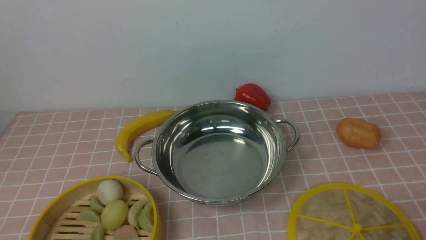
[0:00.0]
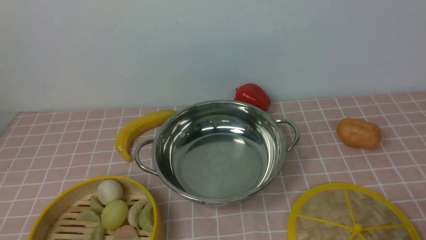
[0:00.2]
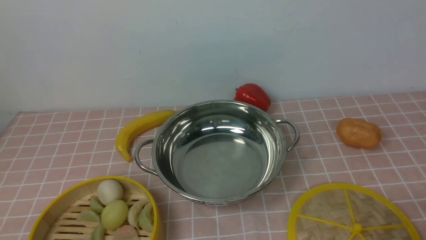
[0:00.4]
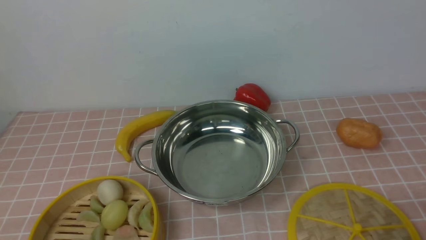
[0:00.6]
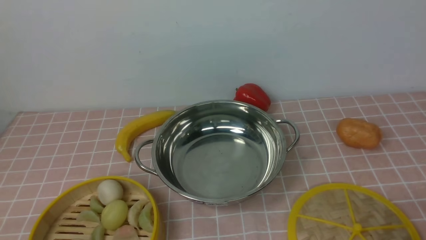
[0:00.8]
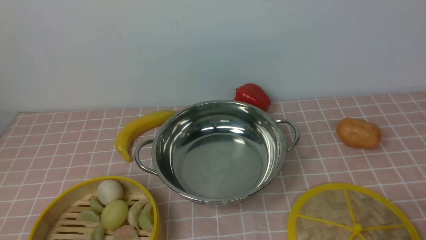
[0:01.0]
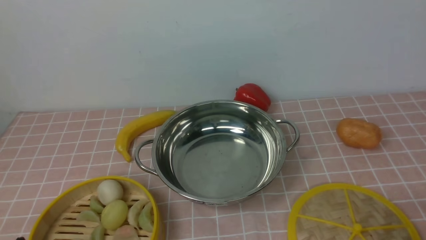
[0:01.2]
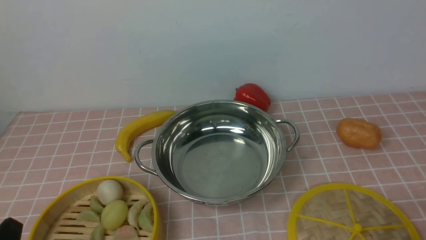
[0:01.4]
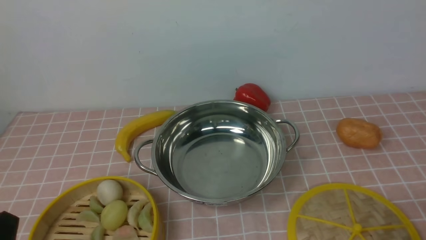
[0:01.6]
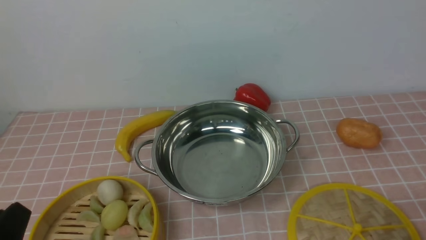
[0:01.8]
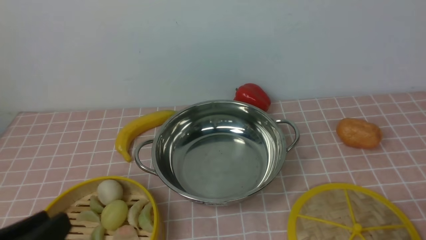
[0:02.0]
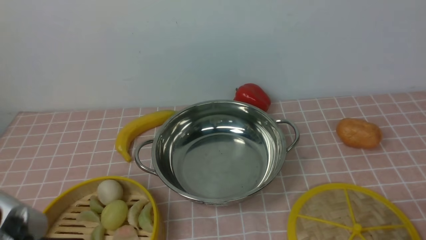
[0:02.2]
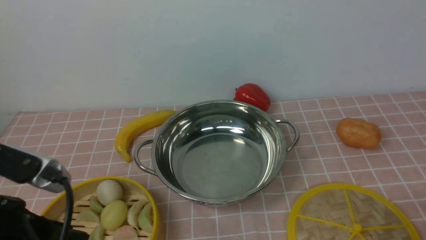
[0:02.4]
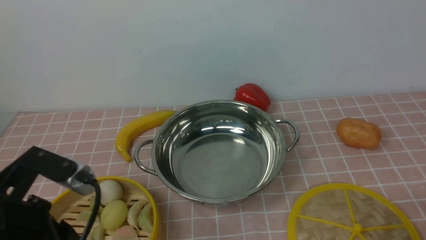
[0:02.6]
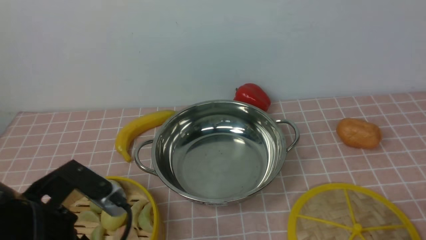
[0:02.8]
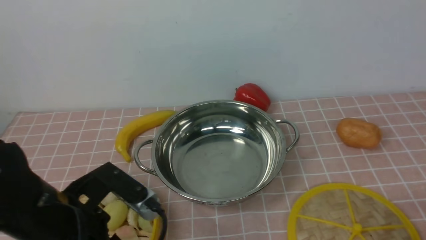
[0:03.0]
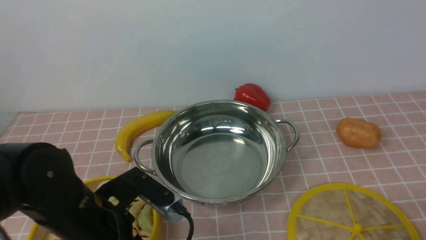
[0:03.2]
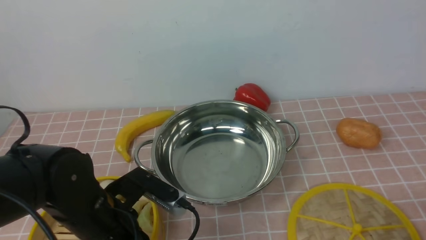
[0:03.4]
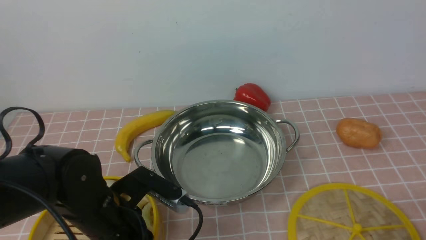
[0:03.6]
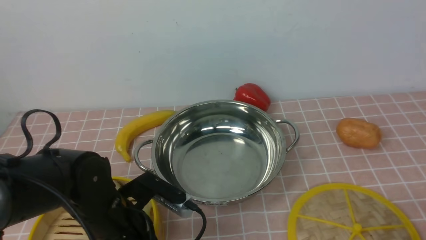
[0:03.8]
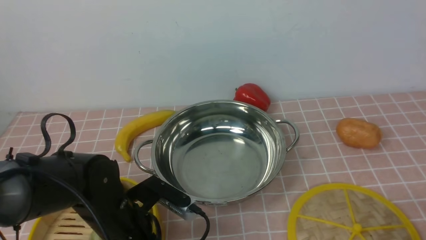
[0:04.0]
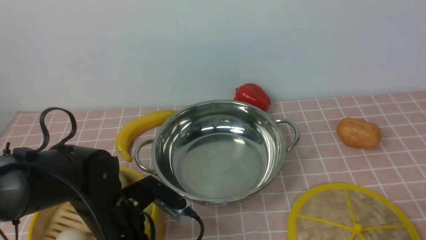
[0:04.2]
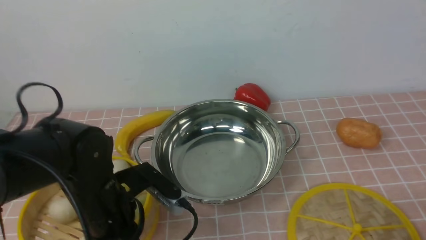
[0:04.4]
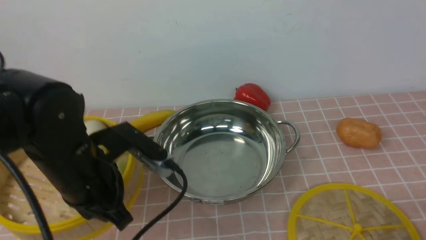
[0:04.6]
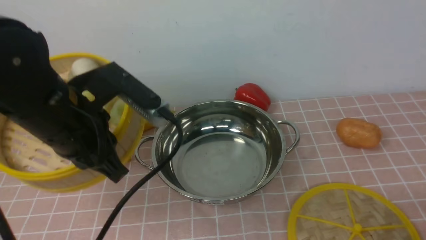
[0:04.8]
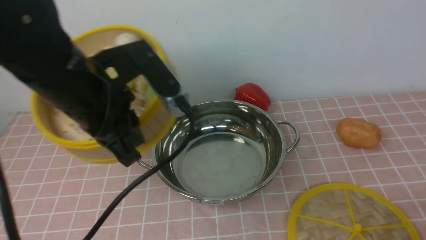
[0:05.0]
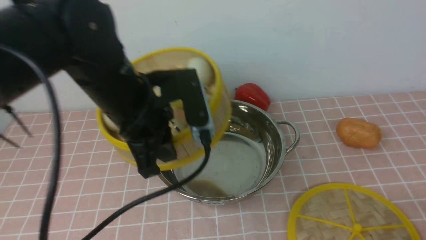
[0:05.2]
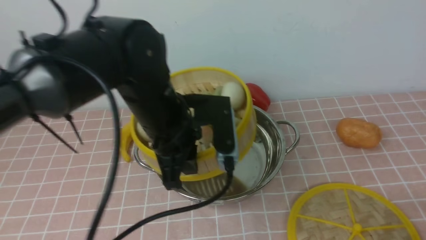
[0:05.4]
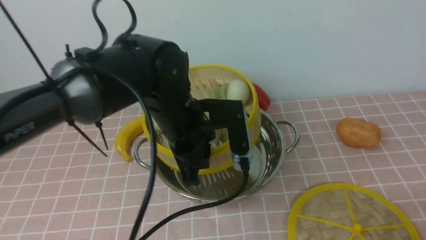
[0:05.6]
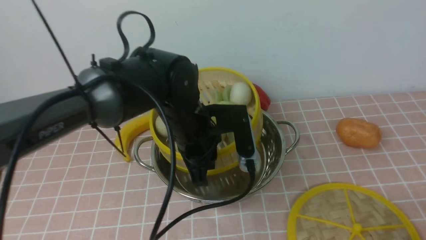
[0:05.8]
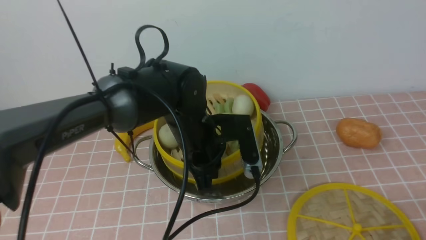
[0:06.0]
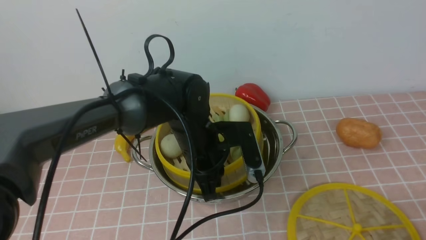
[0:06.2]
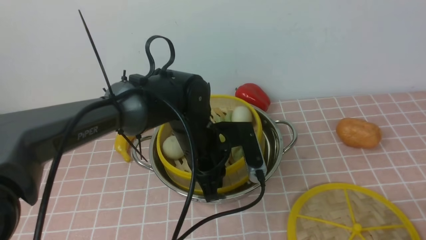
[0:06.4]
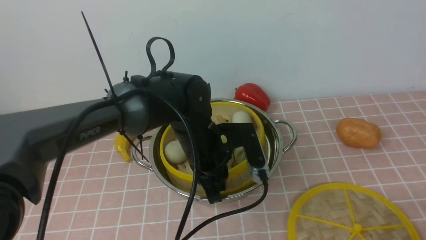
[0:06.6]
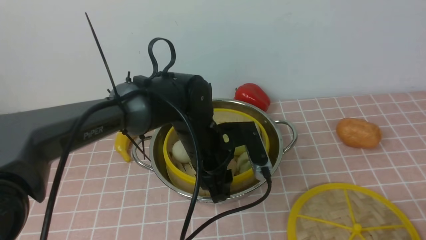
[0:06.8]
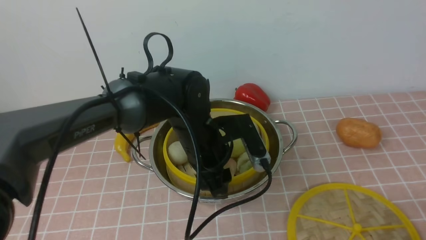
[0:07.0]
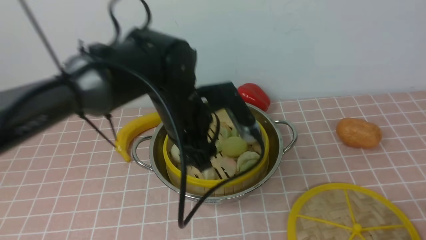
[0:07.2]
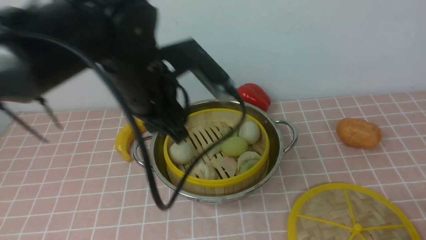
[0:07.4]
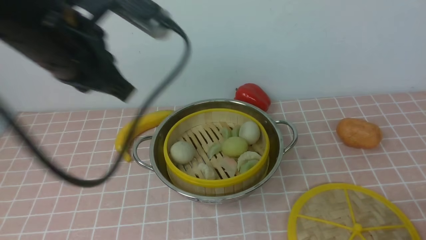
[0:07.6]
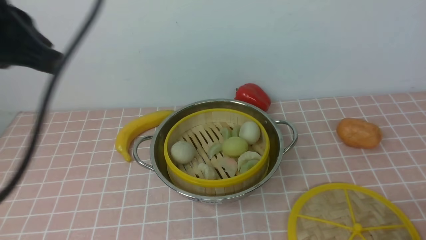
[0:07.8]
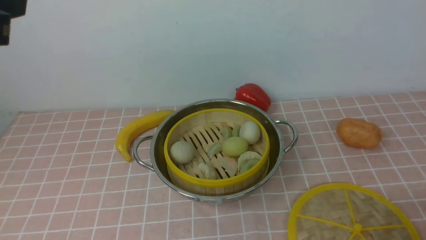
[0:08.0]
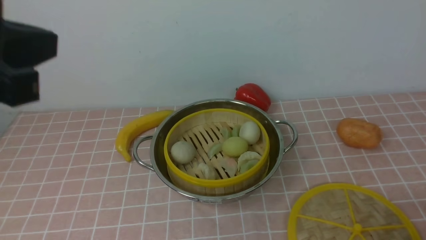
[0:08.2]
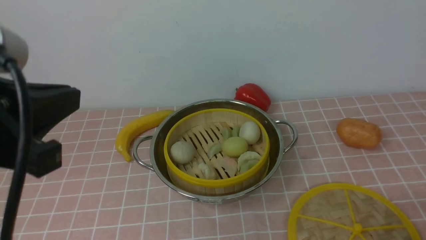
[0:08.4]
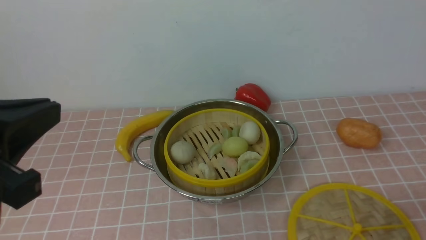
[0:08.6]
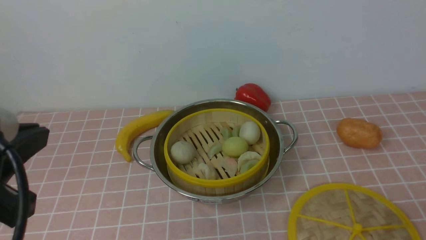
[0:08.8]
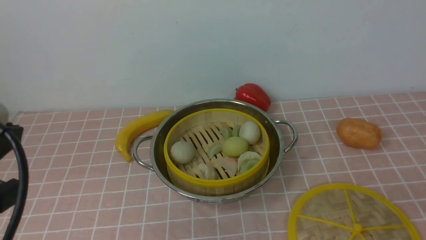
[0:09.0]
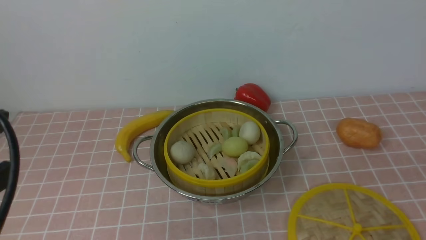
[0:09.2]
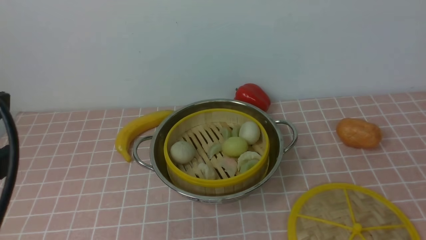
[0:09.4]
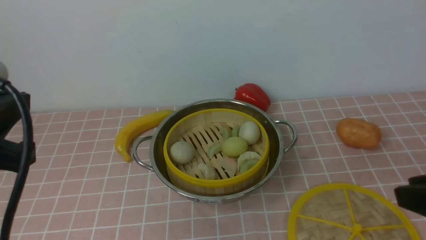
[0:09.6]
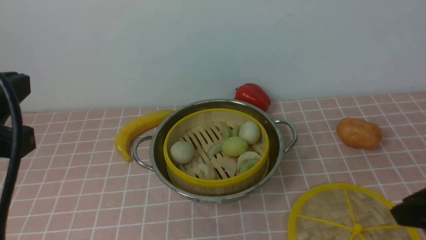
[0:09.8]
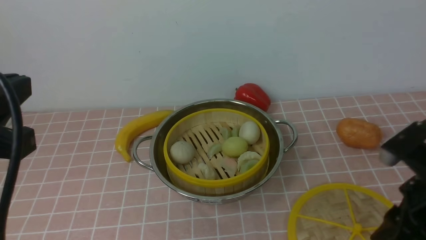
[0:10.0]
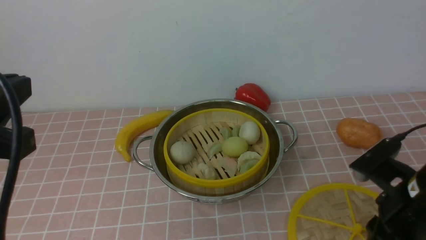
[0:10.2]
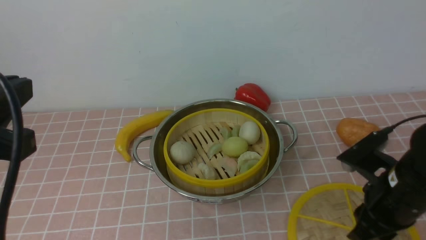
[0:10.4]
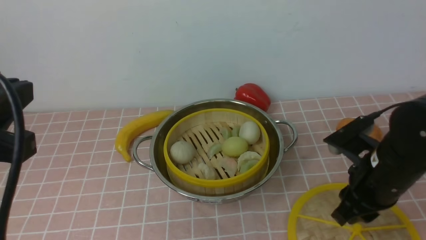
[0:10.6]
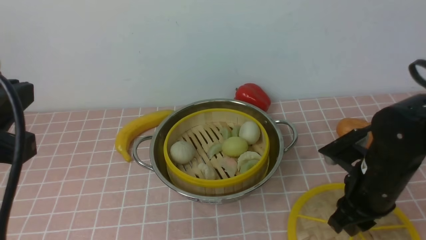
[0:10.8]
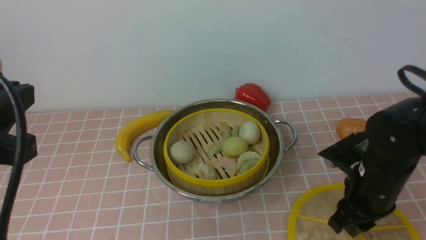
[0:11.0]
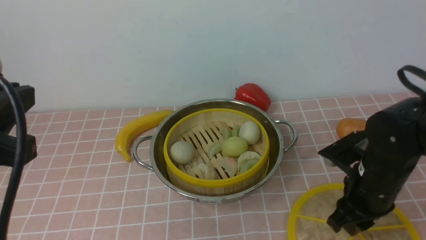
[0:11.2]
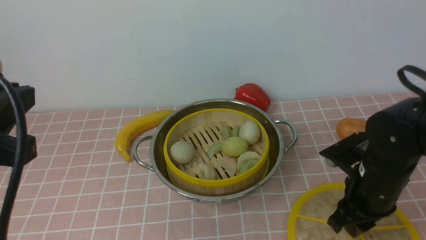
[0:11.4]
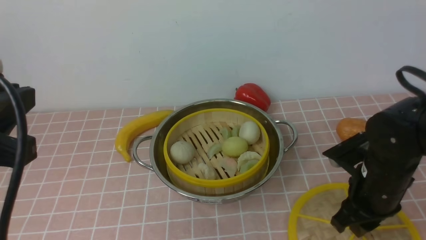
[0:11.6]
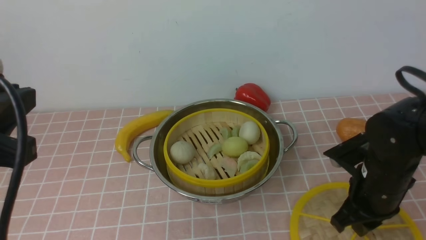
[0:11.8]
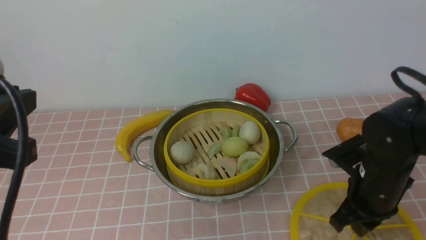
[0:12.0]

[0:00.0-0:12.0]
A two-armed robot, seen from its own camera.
Task of the whole recording: place the steamer in the pot on the pink tablecloth, and put the lid on the steamer.
Step, 0:00.0 to 0:04.2: use the left arm to lift the steamer closest to it.
Step, 0:04.4 to 0:07.0: use the left arm to put the steamer into the iron steamer pot in the middle.
0:01.6 to 0:03.0: The left gripper travels forward and to the right by roughly 15 cm.
0:03.0 to 0:04.4: The left gripper travels forward and downward by roughly 10 cm, and closes up.
0:04.4 to 0:06.0: The left gripper shifts approximately 15 cm to the right and forward, and travels upward and back again, roughly 15 cm each way.
0:06.0 to 0:07.6: The left gripper shifts about 20 cm upward and to the left, and opens and closes again.
0:07.6 to 0:09.0: The left gripper shifts approximately 20 cm backward and to the left, while the right gripper shifts some 5 cm upward.
0:09.0 to 0:10.4: The right gripper travels forward and to the left by roughly 20 cm.
0:10.4 to 0:12.0: The right gripper changes place by about 5 cm.

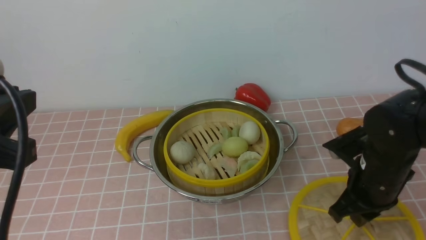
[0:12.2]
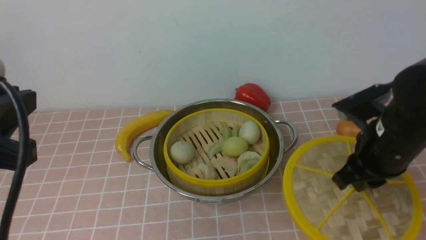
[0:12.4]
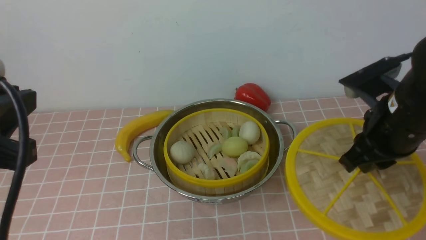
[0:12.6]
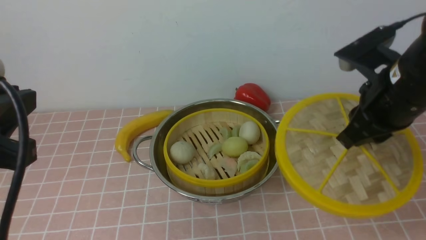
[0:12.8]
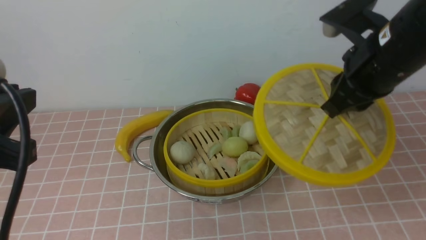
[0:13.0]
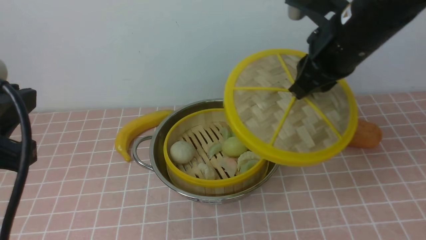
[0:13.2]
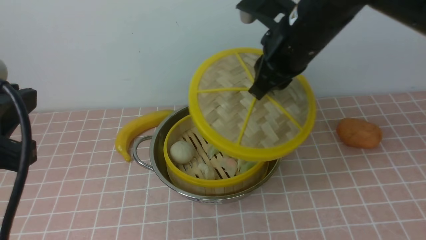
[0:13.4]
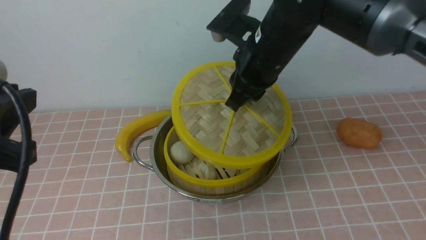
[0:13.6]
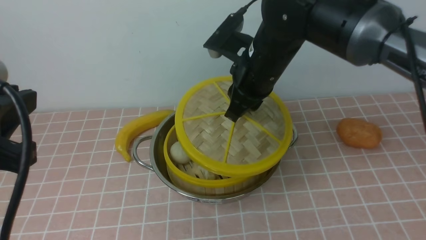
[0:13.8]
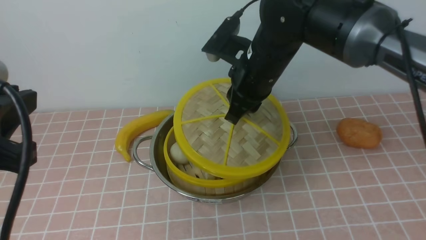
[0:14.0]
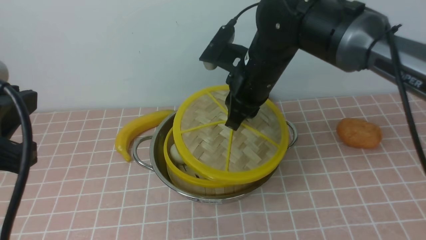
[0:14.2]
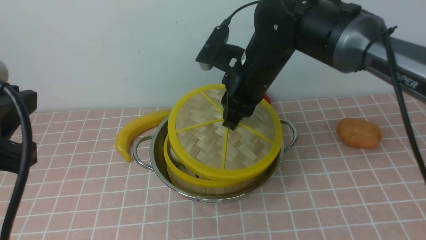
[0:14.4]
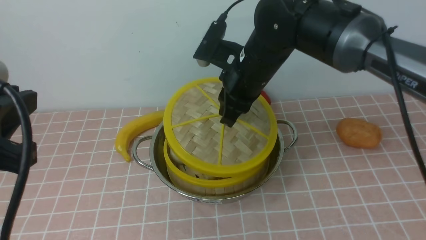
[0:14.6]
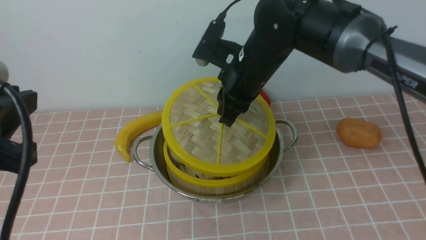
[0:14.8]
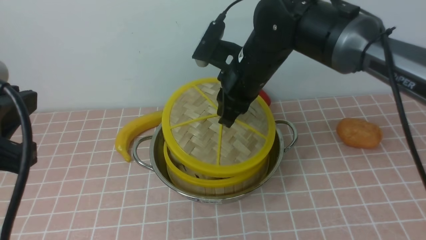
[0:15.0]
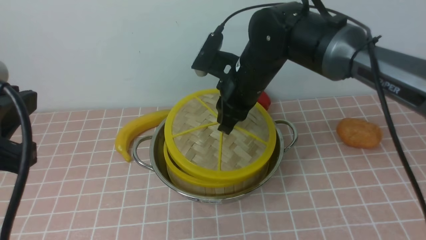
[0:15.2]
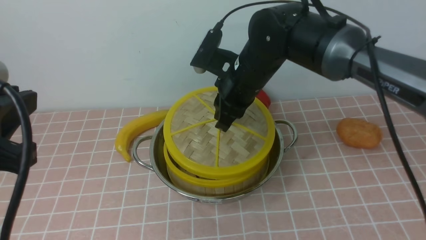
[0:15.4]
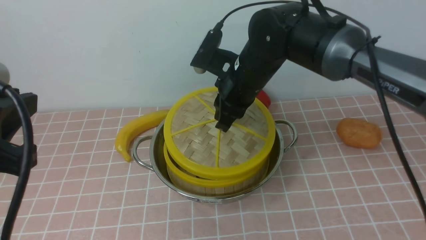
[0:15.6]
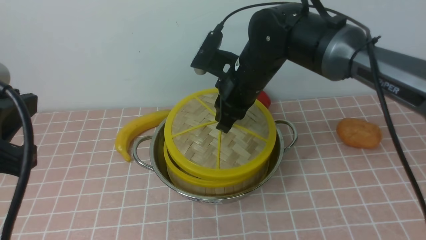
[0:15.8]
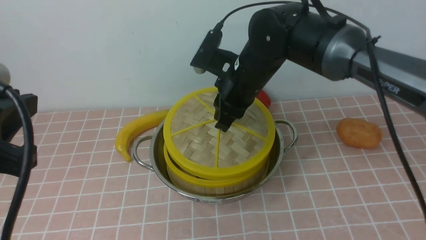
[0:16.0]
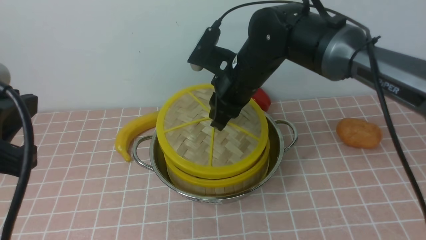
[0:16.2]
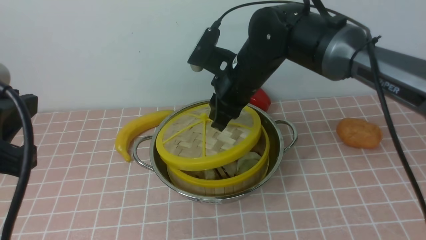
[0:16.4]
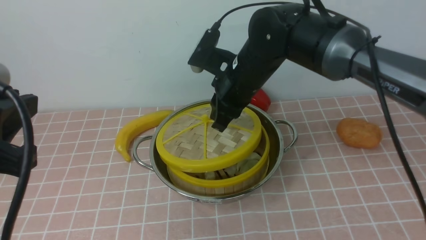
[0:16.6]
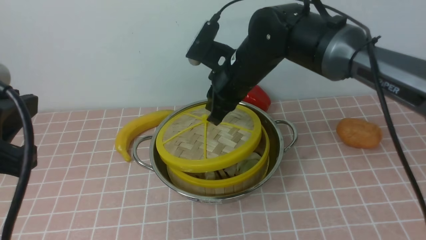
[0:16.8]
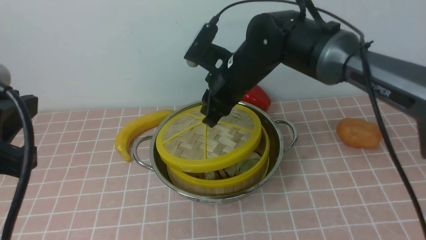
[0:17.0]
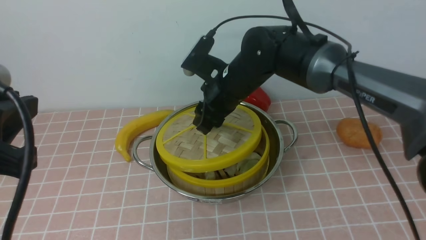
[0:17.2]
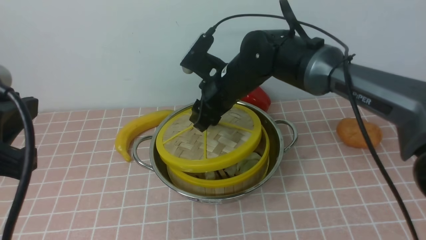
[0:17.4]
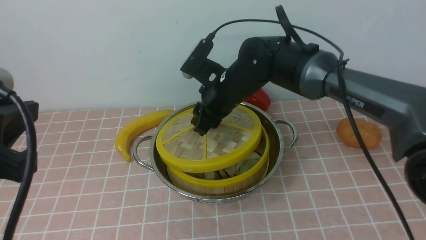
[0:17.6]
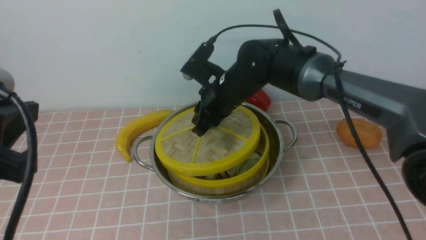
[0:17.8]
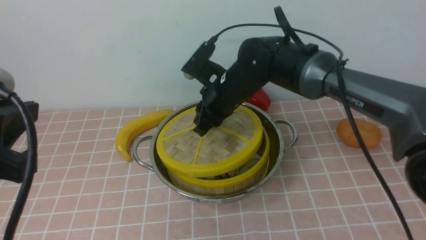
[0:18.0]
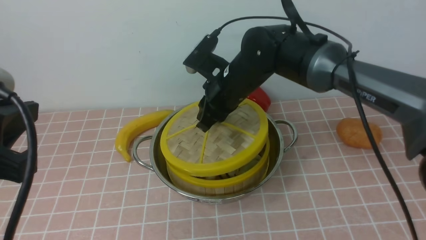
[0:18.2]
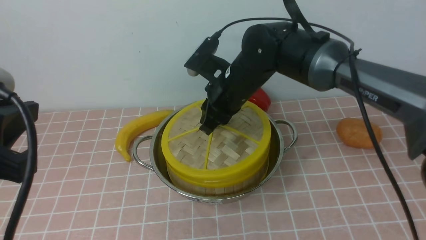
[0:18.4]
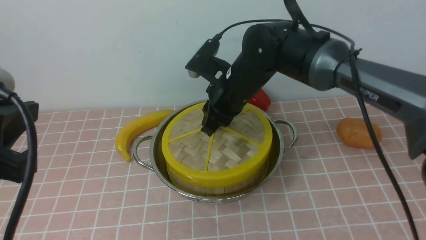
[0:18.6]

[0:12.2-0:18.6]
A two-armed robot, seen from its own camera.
Task of the whole recording: place the steamer in the pot on the pink tablecloth, and put the lid on the steamer.
0:12.2 to 0:13.8: The right gripper moves to the left, upward and forward, approximately 20 cm.
0:13.8 to 0:15.4: The right gripper ends up roughly 5 cm from where it was.
0:15.4 to 0:17.0: The grippers move only a little.
0:17.0 to 0:18.6: The right gripper opens and closes again.
